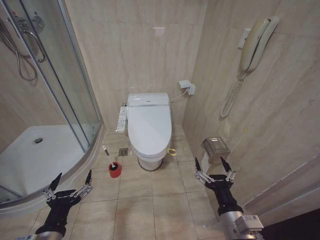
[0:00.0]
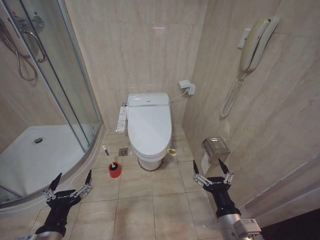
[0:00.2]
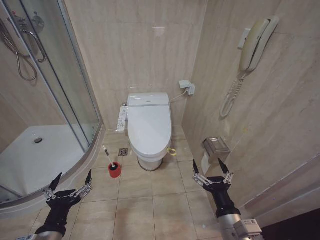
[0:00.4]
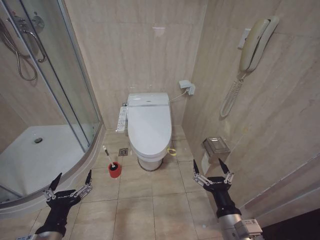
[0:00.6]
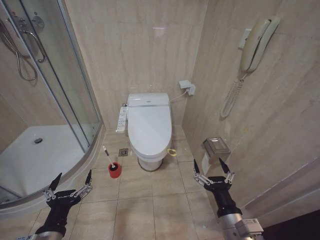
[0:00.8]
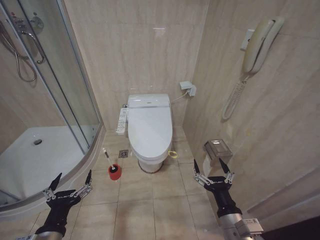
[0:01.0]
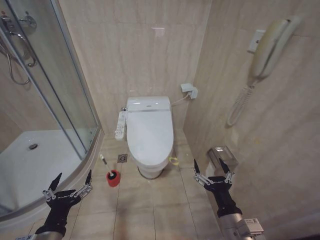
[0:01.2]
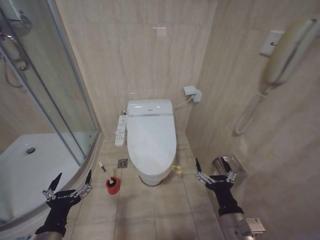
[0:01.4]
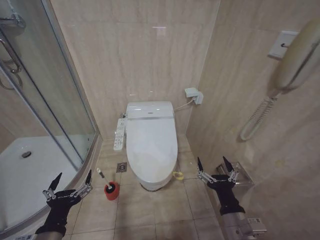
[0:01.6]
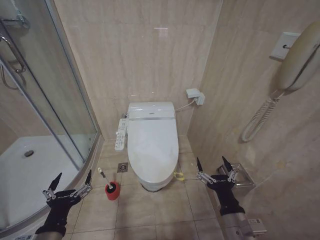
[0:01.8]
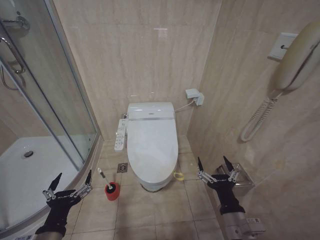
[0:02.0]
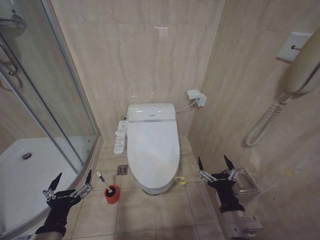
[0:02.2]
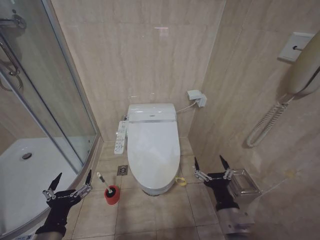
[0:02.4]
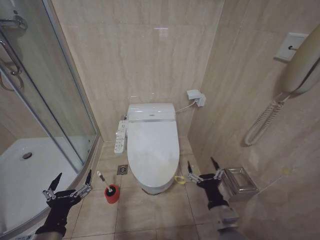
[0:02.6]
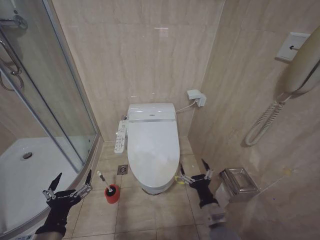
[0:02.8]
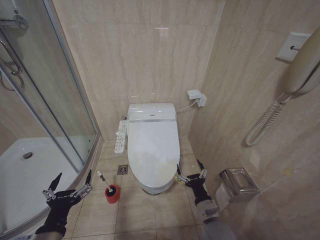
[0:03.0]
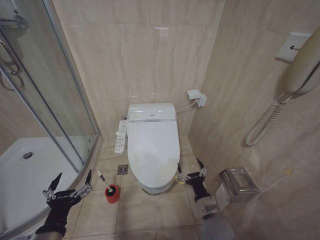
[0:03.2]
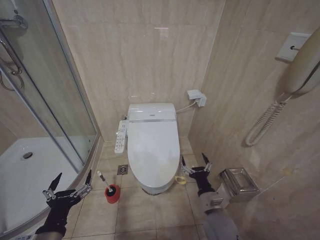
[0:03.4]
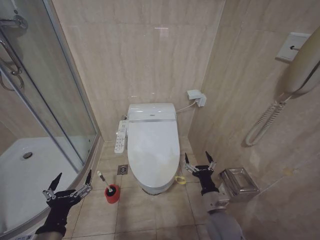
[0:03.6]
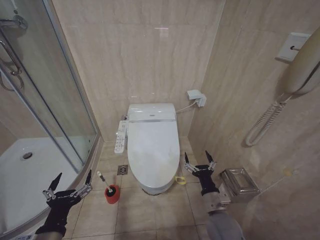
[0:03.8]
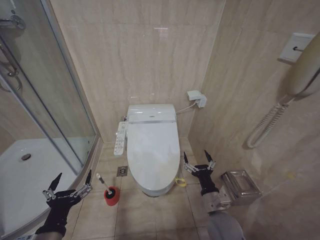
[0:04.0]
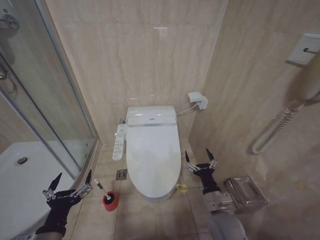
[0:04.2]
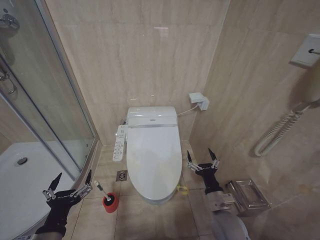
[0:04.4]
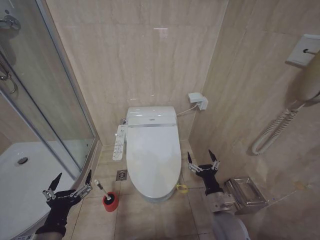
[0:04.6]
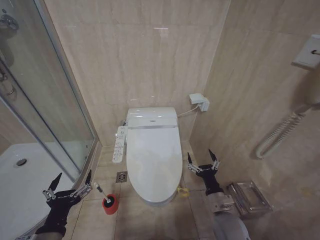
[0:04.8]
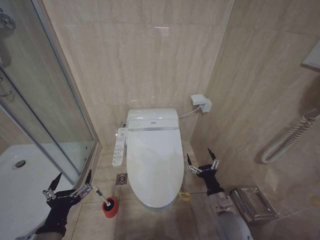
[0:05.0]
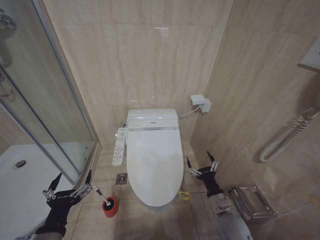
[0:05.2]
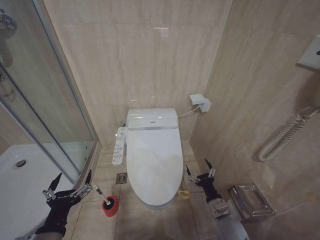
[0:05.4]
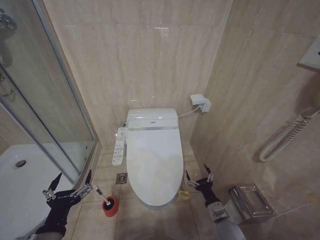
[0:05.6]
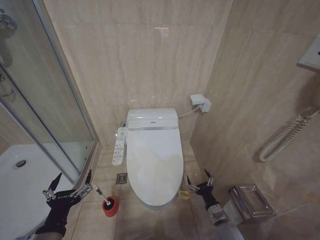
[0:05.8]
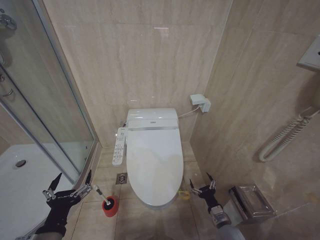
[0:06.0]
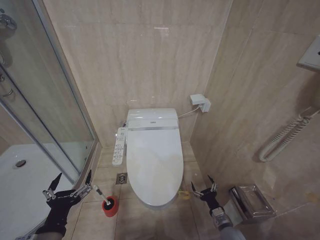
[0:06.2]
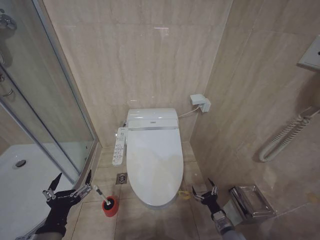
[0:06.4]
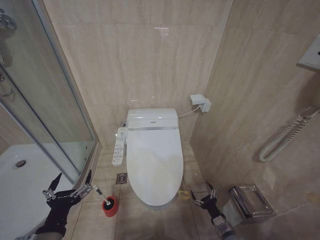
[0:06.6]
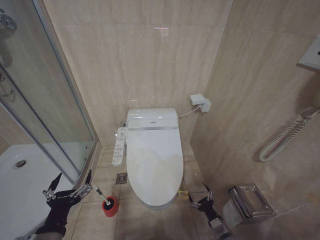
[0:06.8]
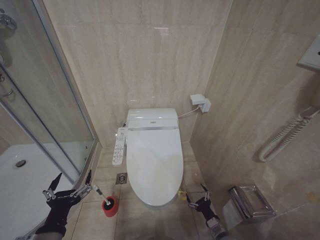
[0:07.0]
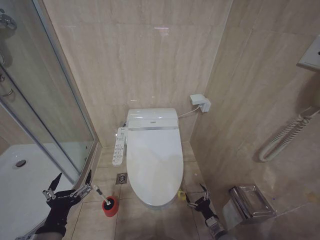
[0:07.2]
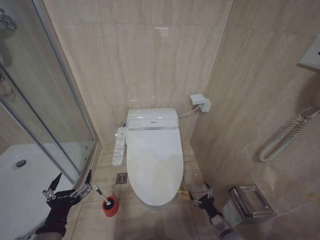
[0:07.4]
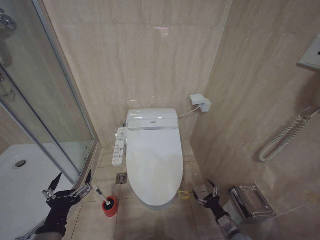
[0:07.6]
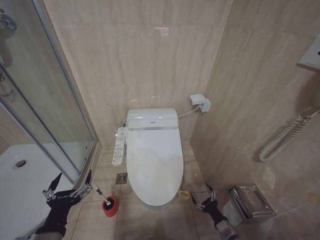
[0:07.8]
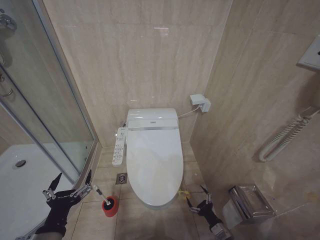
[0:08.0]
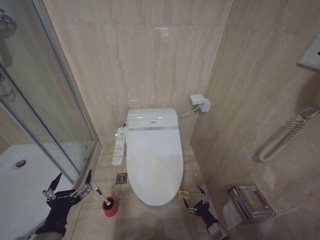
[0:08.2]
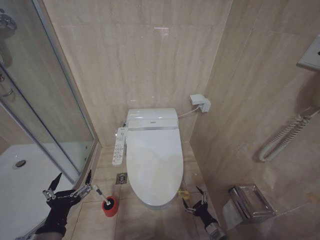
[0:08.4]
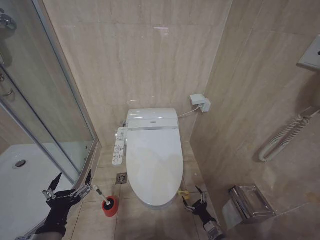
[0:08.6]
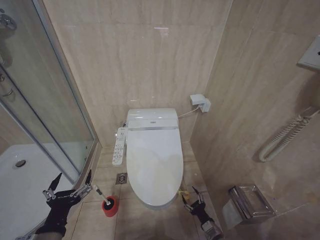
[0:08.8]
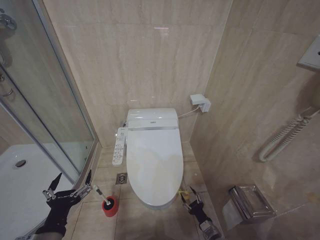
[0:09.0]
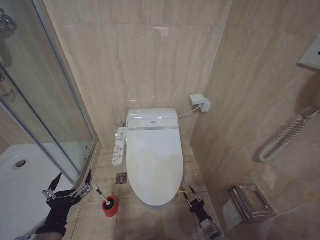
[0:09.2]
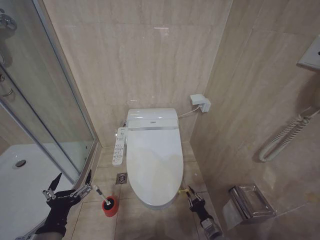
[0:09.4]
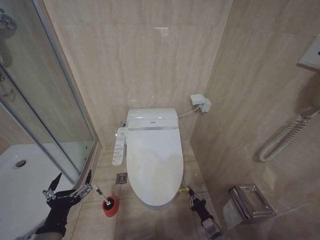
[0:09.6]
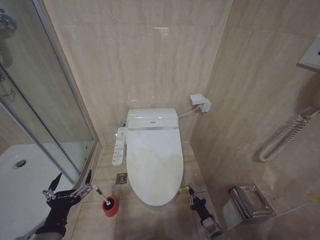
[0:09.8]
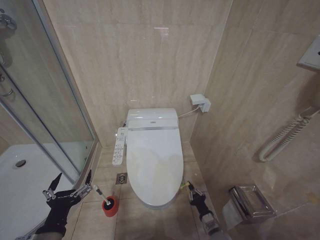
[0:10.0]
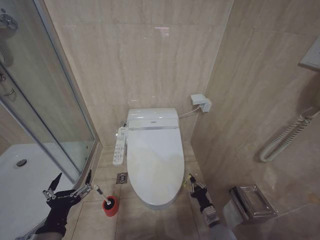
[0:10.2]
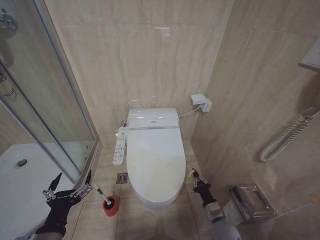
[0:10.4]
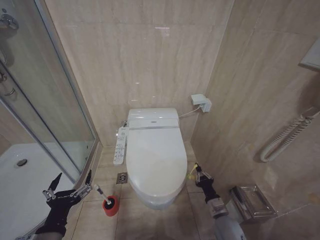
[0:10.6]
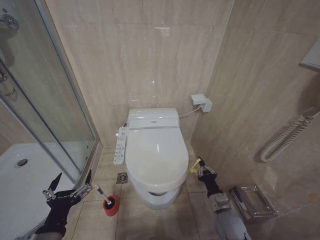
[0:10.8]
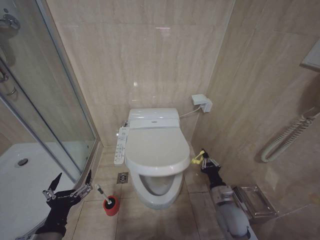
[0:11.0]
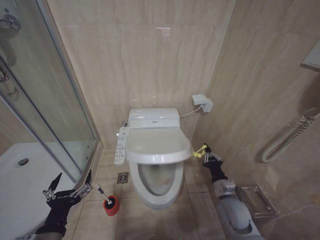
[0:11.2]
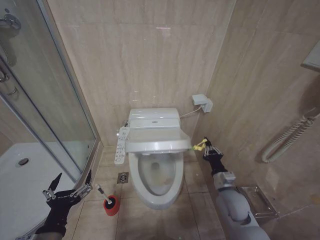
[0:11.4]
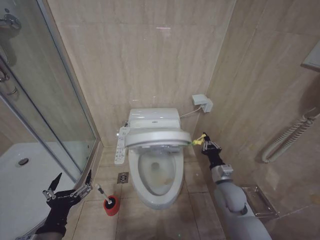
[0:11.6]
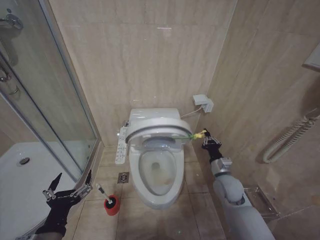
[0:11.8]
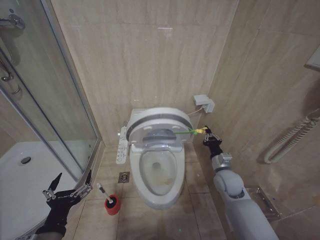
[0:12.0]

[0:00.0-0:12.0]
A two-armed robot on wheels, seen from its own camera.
Task of the whole recording: Open the toilet lid, clean the toilet bowl with a toilet brush, close the toilet lid, and flush.
0:01.6 to 0:03.0: The right gripper moves downward and forward, about 10 cm.
0:03.0 to 0:04.4: The grippers make only small movements.
0:04.4 to 0:06.0: The right gripper heads downward and to the right, covering some 15 cm.
0:06.0 to 0:07.6: The right gripper moves approximately 5 cm.
0:07.6 to 0:09.0: The right gripper goes about 10 cm to the left and downward.
0:09.0 to 0:10.4: The right gripper moves upward, roughly 10 cm, and closes.
0:10.4 to 0:12.0: The right gripper goes some 20 cm upward and forward.

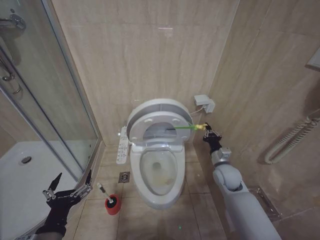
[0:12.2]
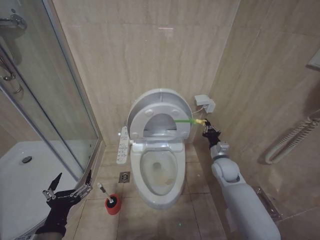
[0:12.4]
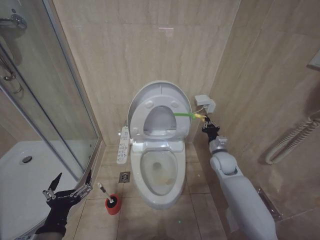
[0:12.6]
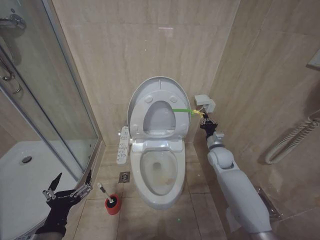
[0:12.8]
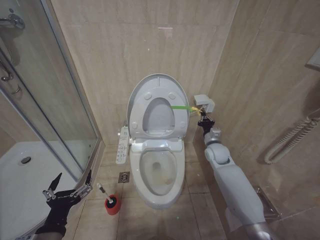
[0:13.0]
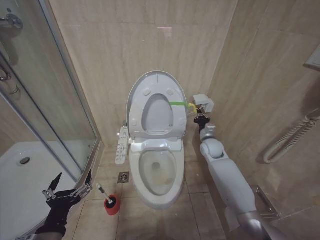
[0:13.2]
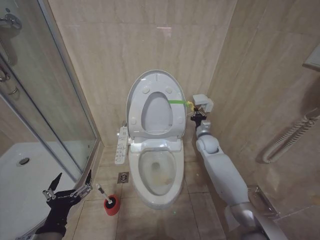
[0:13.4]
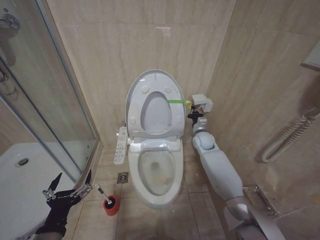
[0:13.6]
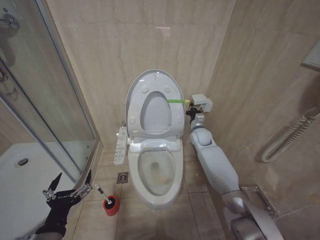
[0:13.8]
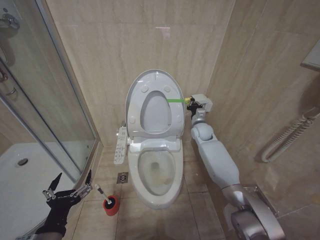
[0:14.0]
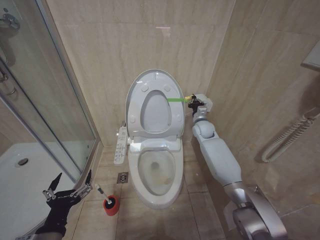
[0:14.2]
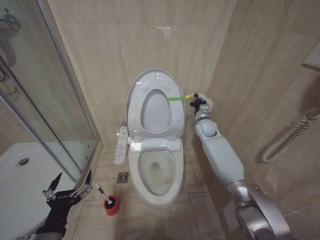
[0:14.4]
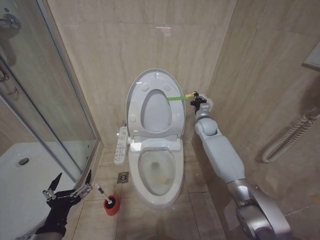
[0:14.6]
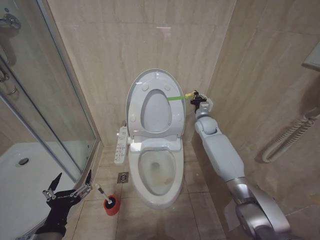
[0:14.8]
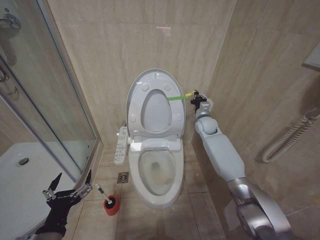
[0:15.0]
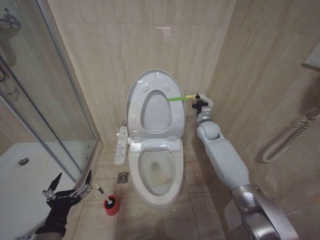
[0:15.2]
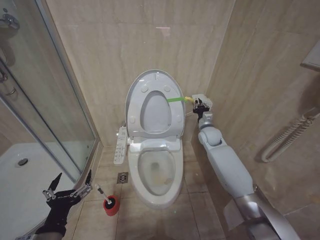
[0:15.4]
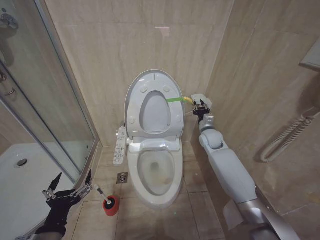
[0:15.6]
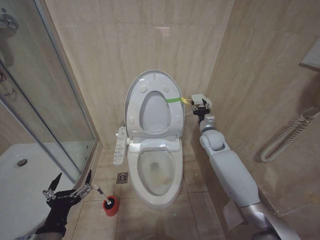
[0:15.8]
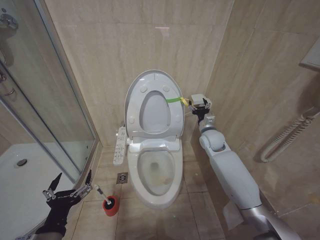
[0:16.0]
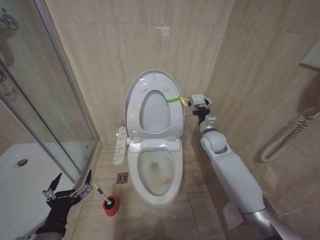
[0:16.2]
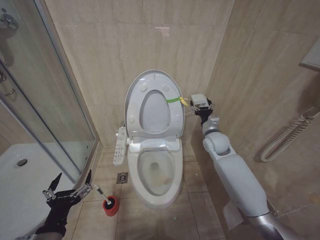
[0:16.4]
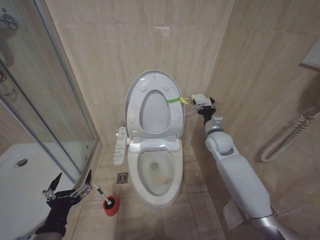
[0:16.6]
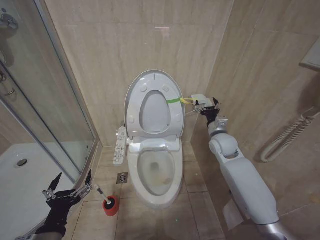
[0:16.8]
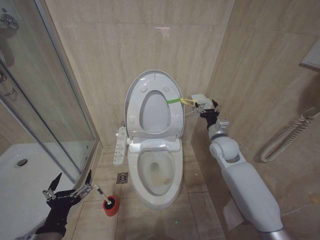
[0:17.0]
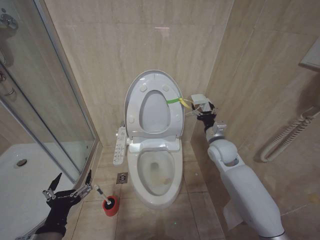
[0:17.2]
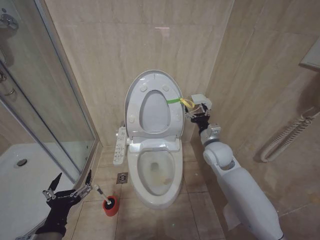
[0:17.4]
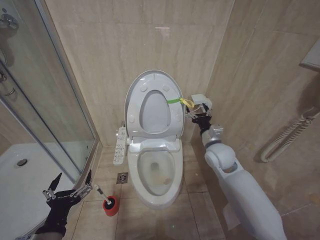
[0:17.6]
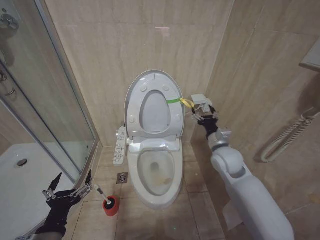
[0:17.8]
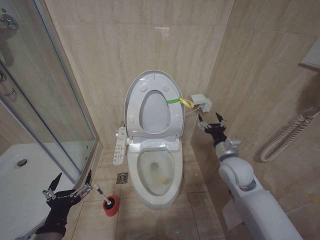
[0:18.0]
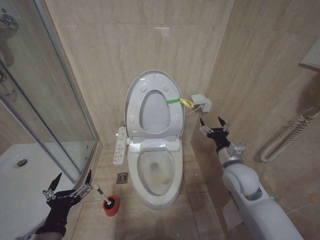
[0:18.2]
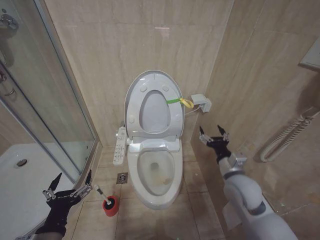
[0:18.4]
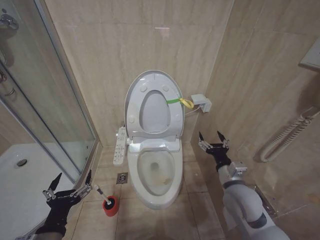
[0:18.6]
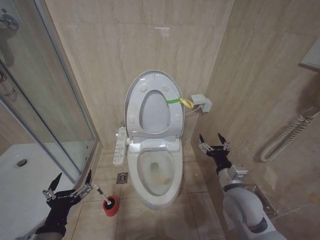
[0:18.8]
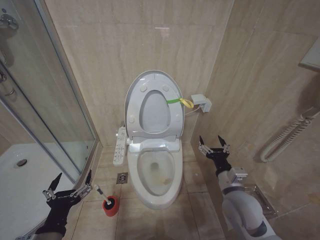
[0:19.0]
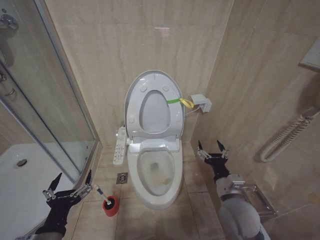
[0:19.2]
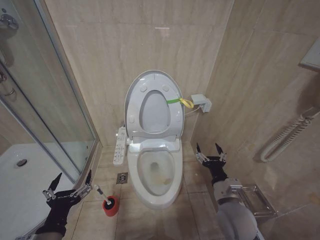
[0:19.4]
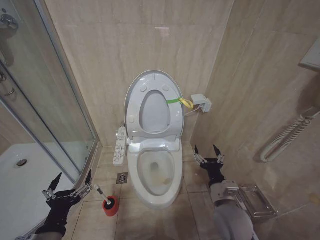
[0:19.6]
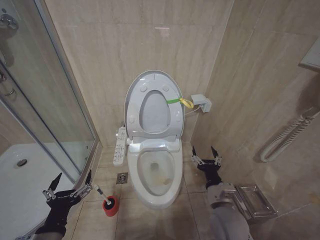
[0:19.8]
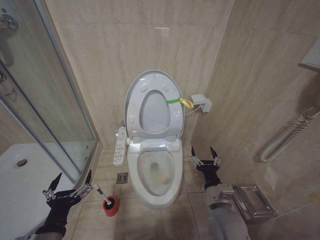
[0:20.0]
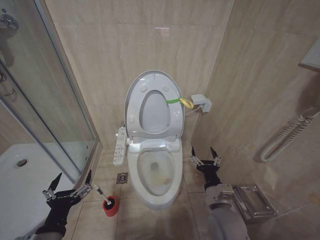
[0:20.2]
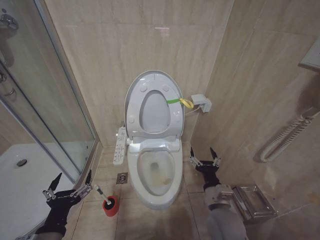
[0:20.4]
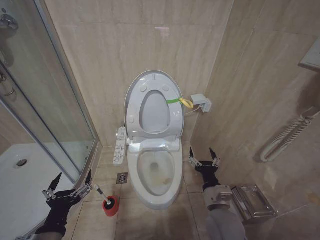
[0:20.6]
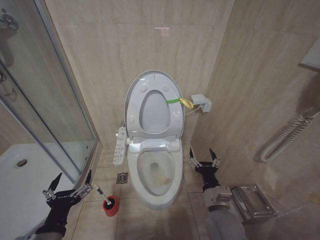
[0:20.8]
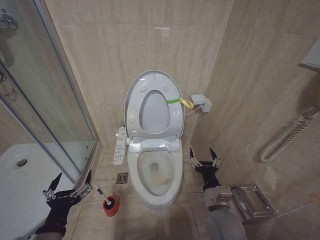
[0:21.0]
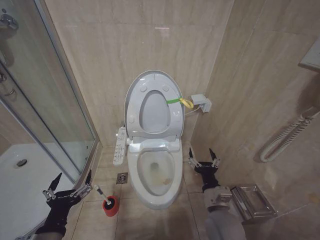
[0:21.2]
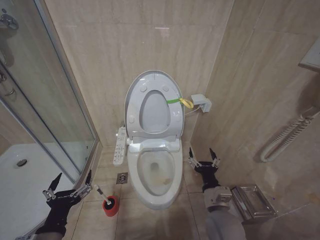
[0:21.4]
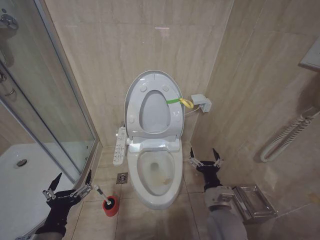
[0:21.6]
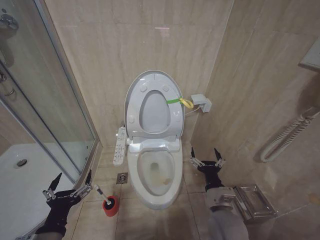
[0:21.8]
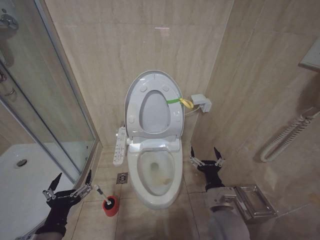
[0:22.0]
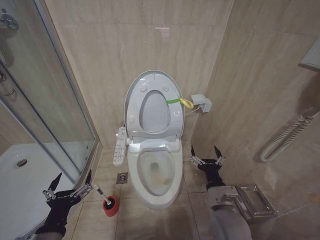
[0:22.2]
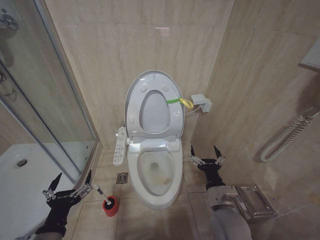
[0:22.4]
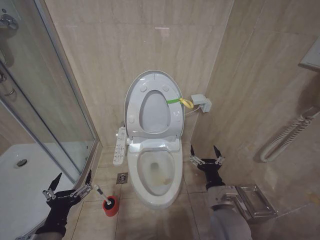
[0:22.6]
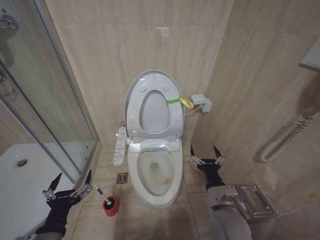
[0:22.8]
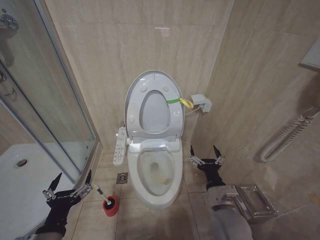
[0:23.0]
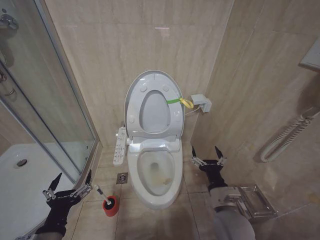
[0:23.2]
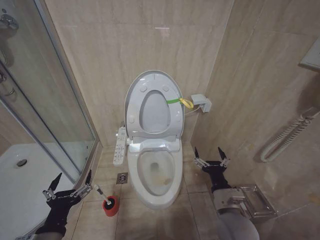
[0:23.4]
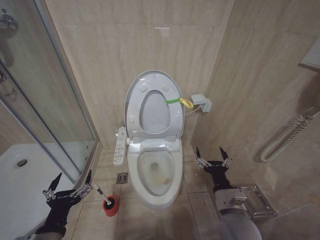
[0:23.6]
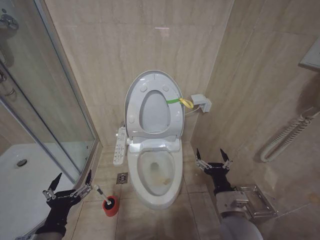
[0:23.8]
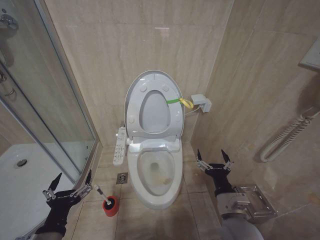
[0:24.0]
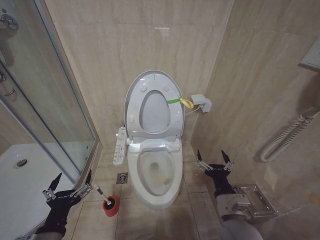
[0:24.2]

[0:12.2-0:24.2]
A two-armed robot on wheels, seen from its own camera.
Task of the whole recording: Open the toilet lid, clean the toilet bowl with a toilet brush, close the toilet lid, and flush.
0:12.2 to 0:13.8: The right gripper travels forward by some 15 cm.
0:13.8 to 0:15.2: The right gripper travels upward by about 5 cm.
0:15.2 to 0:16.6: The right gripper goes approximately 10 cm backward, and opens up.
0:16.6 to 0:18.2: The right gripper goes about 15 cm backward.
0:18.2 to 0:19.8: The right gripper heads backward, downward and to the left, covering about 15 cm.
0:19.8 to 0:21.2: The grippers make only small movements.
0:22.6 to 0:24.2: The grippers move only a little.
